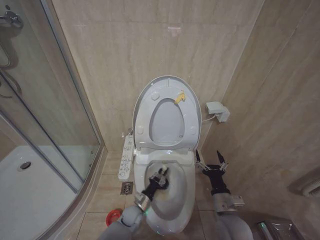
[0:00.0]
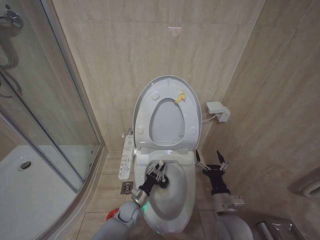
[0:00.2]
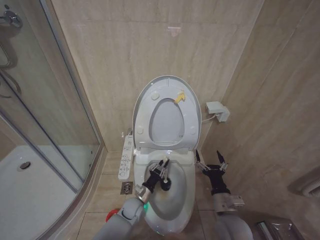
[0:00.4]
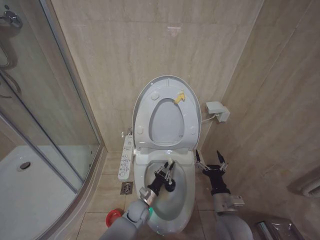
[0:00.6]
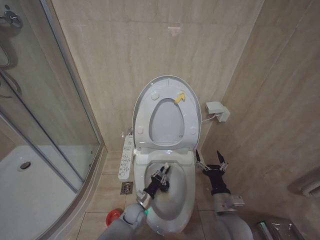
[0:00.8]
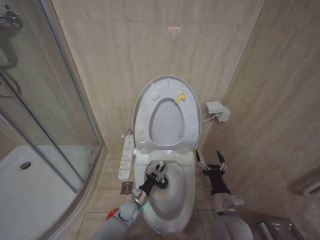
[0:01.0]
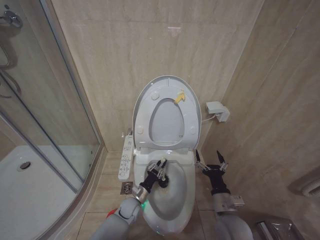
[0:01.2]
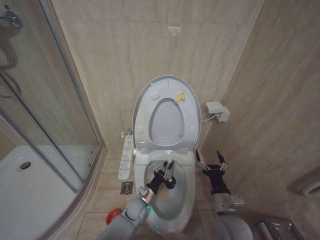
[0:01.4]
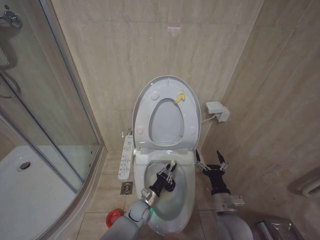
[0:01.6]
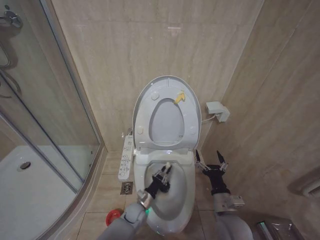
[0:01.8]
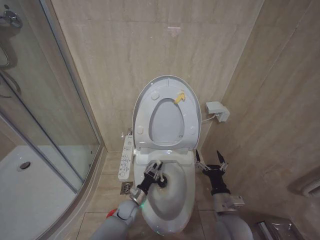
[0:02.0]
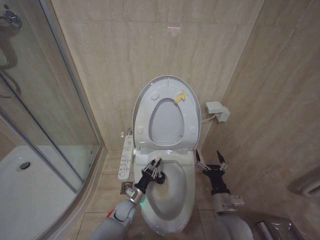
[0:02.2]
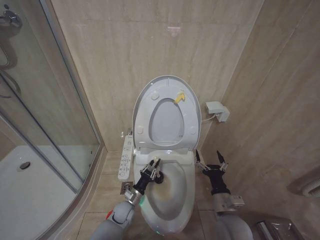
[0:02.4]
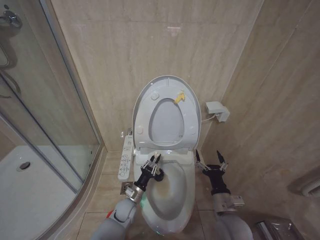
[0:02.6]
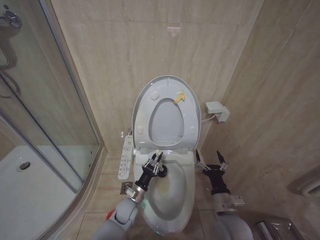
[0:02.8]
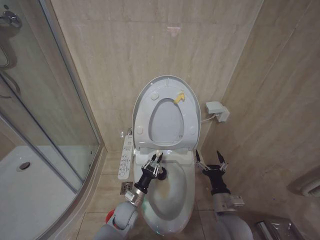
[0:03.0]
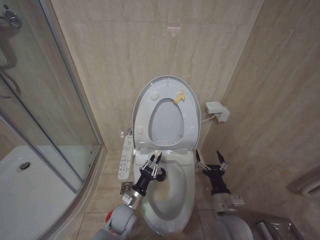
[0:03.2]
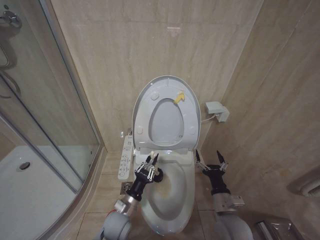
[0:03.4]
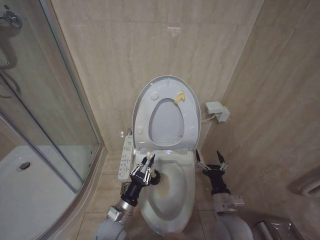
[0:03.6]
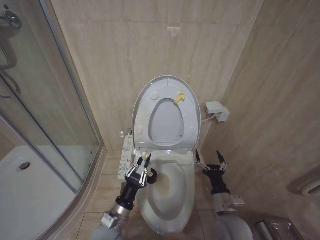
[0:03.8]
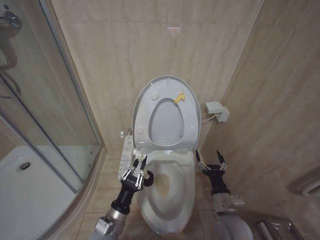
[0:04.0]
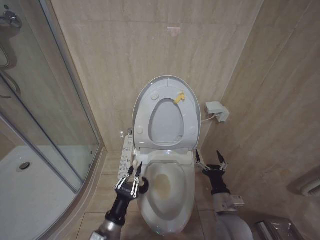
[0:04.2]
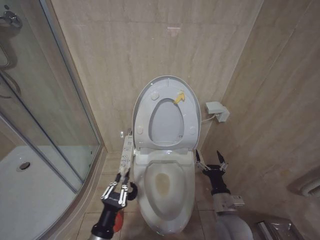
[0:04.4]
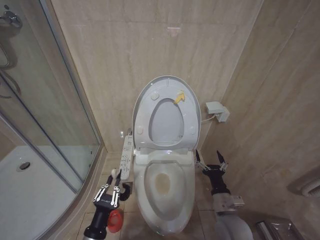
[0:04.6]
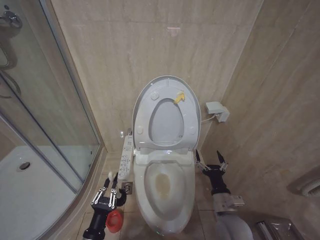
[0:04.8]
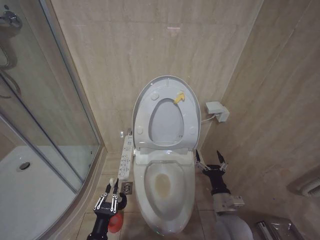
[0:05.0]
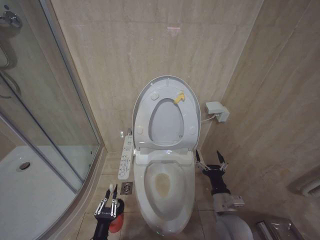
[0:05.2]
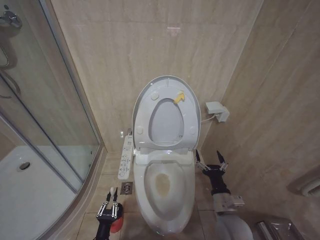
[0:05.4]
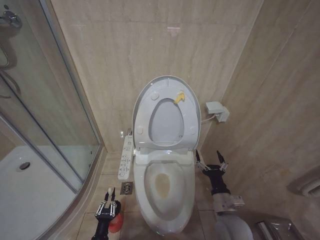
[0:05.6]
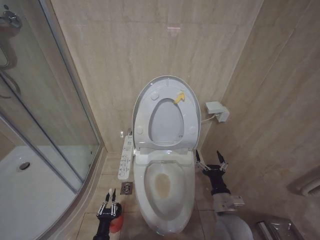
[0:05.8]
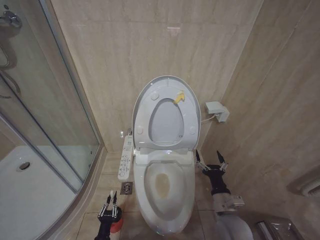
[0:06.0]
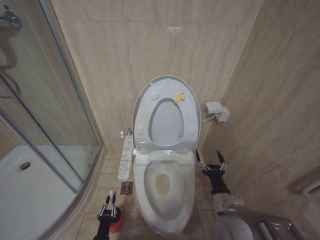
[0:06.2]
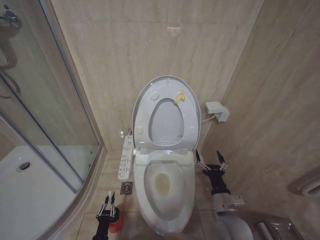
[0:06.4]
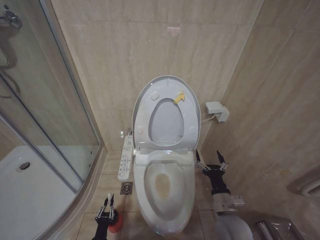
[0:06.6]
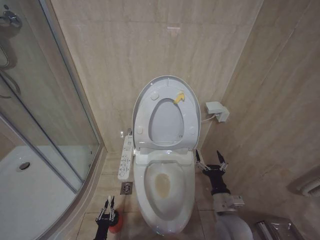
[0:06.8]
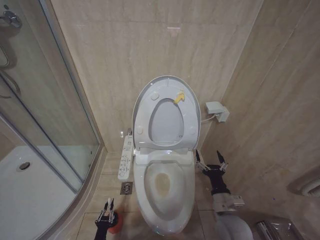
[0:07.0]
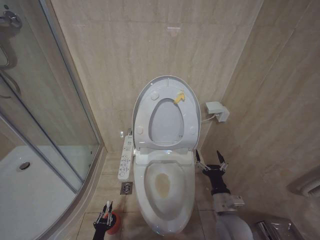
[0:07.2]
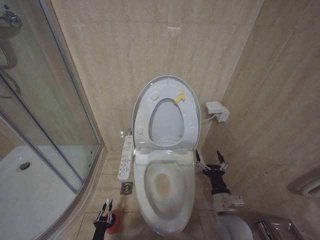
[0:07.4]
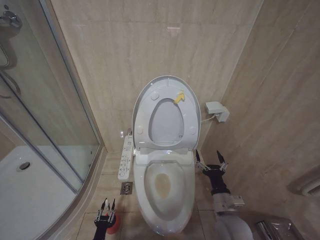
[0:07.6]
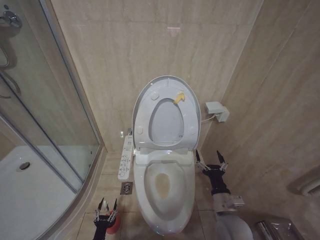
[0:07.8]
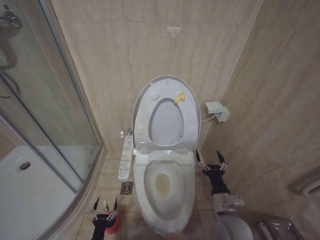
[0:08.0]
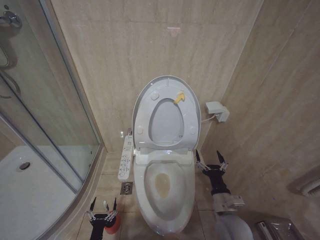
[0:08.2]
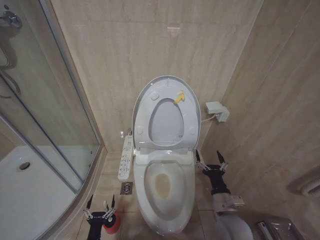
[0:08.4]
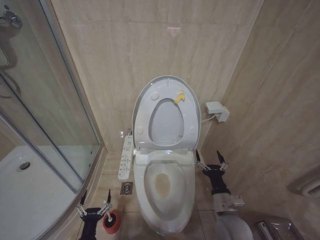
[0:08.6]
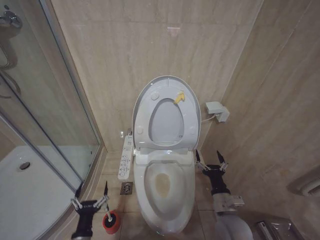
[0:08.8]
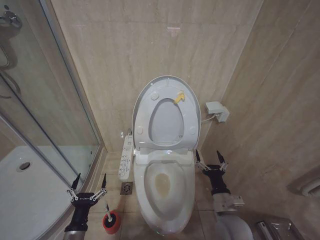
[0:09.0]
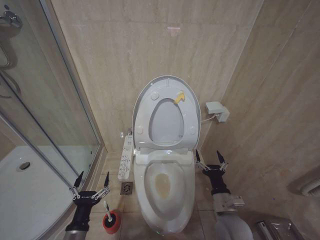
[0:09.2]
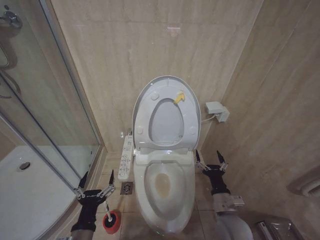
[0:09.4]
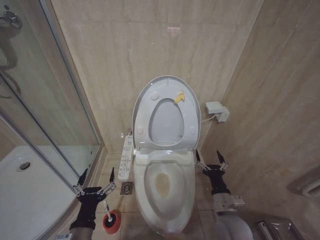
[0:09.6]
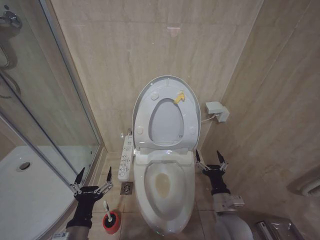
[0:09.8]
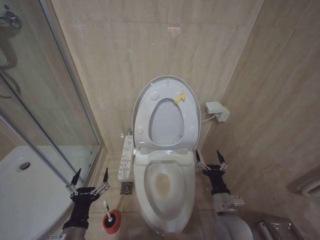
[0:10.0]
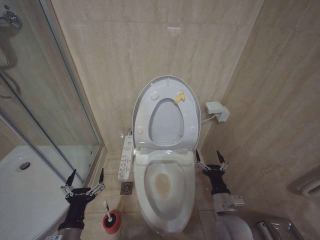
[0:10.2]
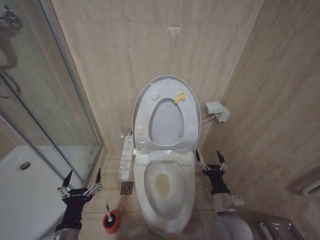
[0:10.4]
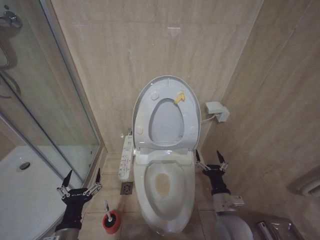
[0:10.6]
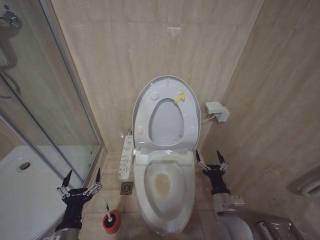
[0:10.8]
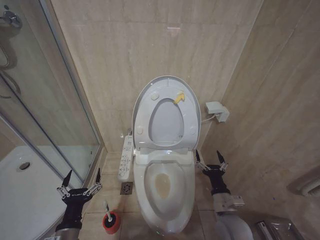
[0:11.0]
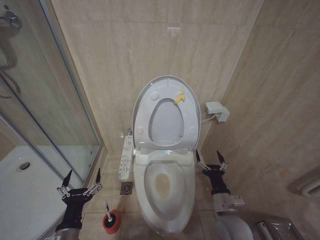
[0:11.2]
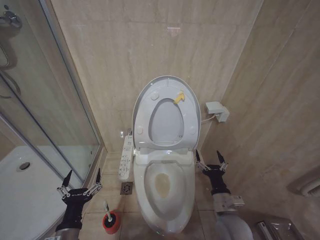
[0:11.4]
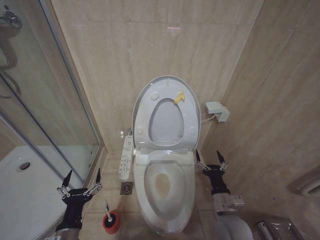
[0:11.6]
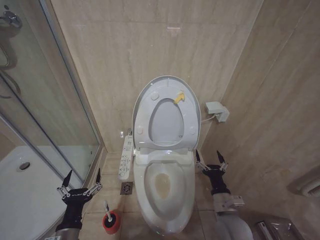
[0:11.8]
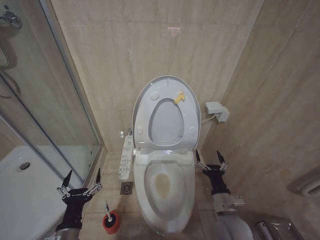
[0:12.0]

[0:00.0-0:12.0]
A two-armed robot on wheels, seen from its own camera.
Task of the whole recording: Open the toilet lid, clean the toilet bowl with a toilet brush, close the toilet lid, and flush.
0:00.0 to 0:01.6: The grippers make only small movements.
0:01.6 to 0:03.0: The left gripper travels upward by some 5 cm.
0:03.0 to 0:04.4: The left gripper moves backward and upward, some 20 cm.
0:04.4 to 0:06.0: The left gripper moves downward, about 20 cm.
0:06.0 to 0:07.6: The left gripper moves about 5 cm.
0:07.6 to 0:09.0: The left gripper goes about 25 cm upward, and opens.
0:09.0 to 0:10.4: The left gripper moves upward, approximately 10 cm.
0:10.4 to 0:12.0: Neither gripper changes place.

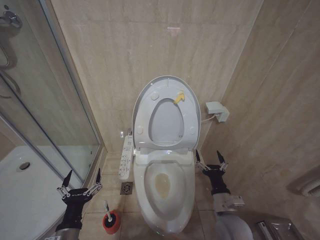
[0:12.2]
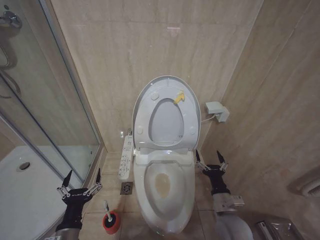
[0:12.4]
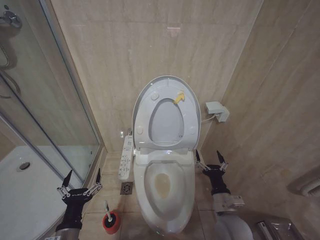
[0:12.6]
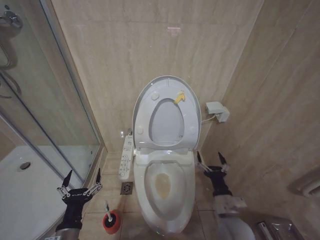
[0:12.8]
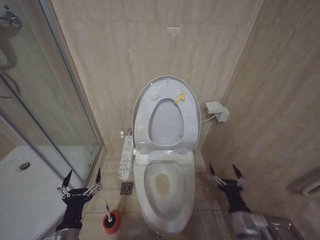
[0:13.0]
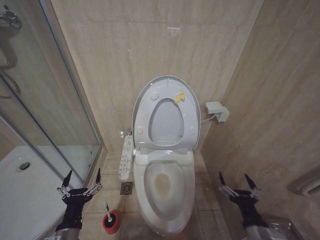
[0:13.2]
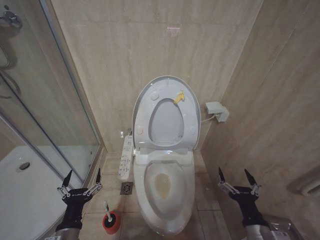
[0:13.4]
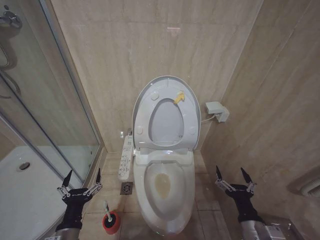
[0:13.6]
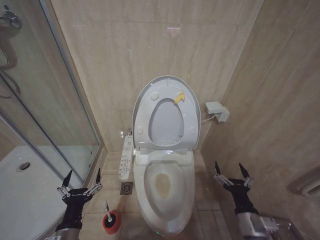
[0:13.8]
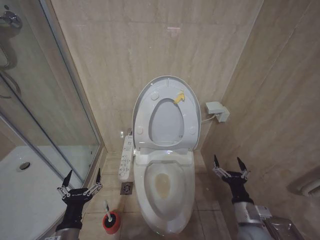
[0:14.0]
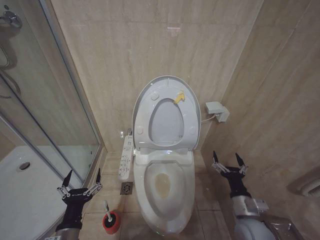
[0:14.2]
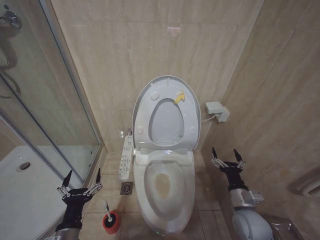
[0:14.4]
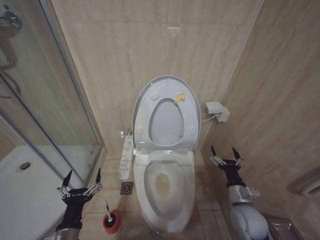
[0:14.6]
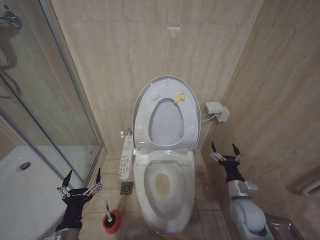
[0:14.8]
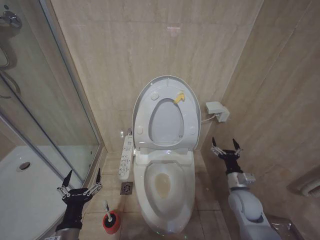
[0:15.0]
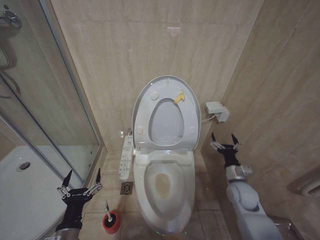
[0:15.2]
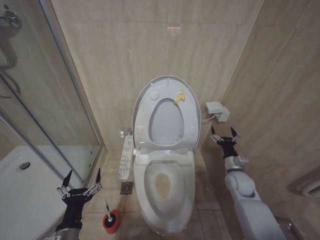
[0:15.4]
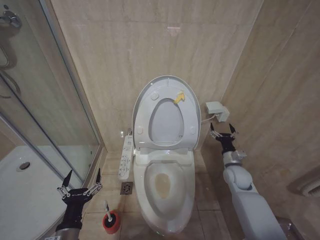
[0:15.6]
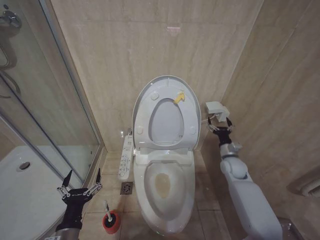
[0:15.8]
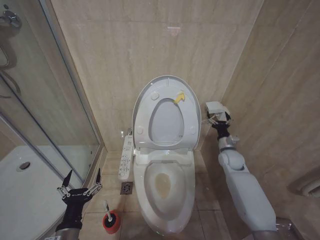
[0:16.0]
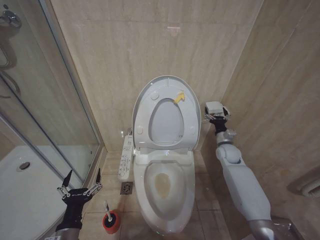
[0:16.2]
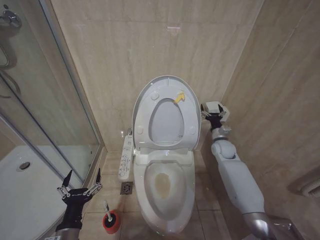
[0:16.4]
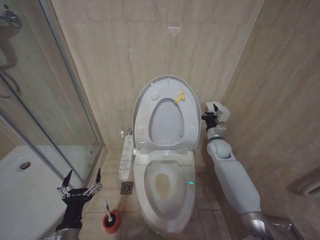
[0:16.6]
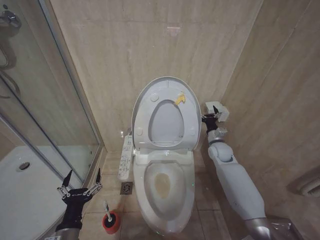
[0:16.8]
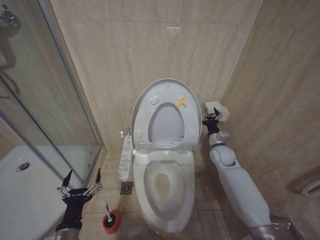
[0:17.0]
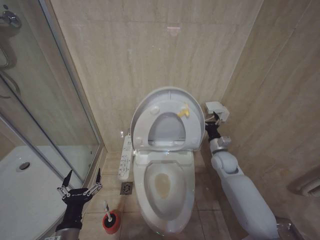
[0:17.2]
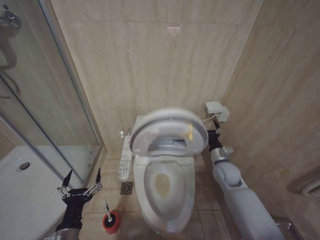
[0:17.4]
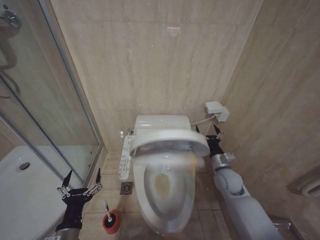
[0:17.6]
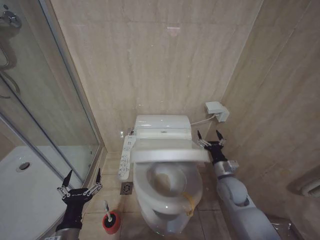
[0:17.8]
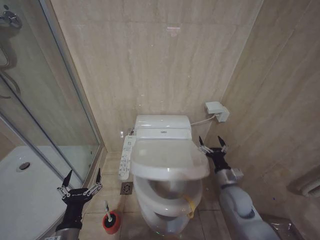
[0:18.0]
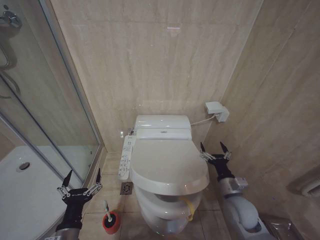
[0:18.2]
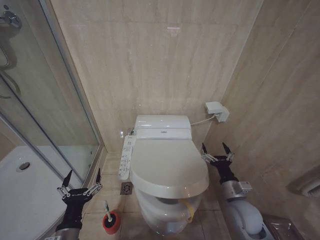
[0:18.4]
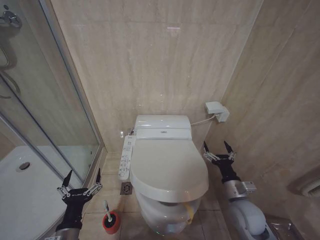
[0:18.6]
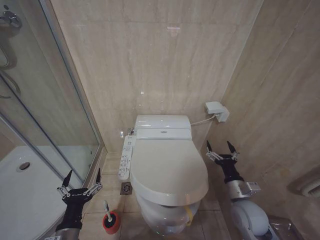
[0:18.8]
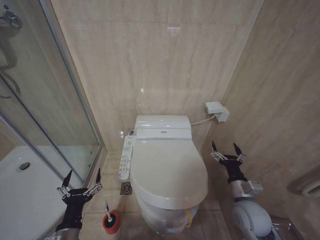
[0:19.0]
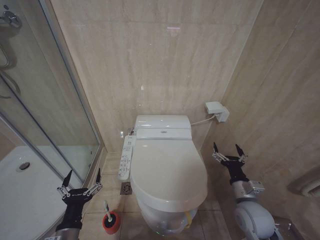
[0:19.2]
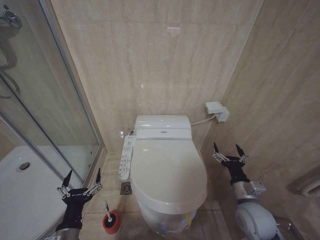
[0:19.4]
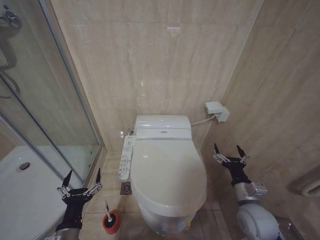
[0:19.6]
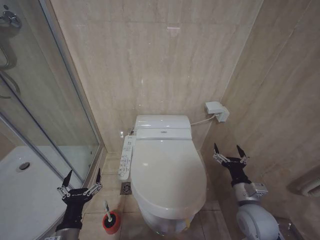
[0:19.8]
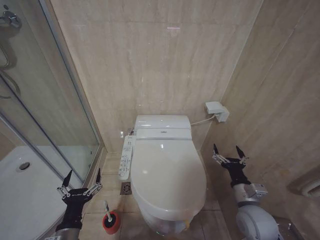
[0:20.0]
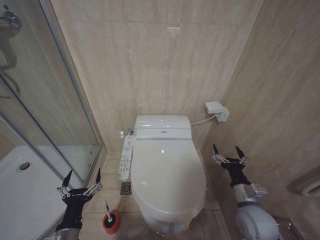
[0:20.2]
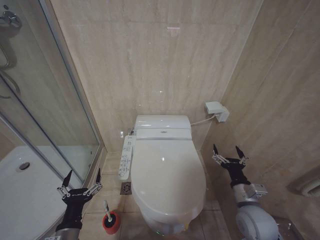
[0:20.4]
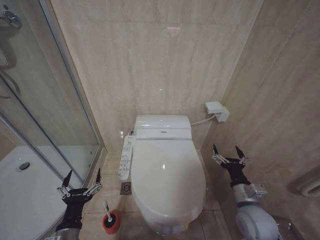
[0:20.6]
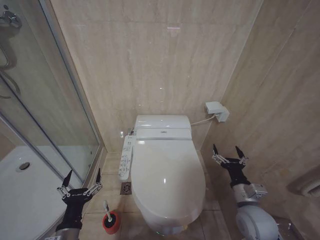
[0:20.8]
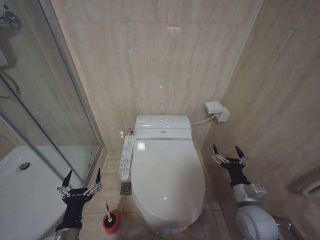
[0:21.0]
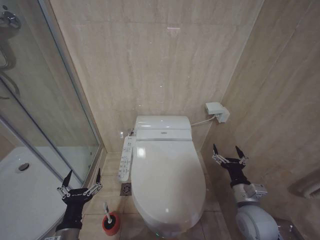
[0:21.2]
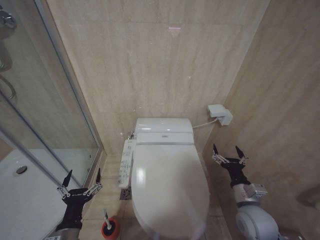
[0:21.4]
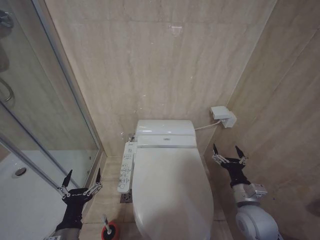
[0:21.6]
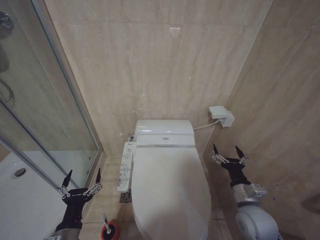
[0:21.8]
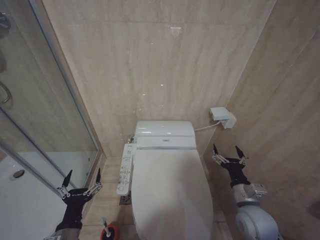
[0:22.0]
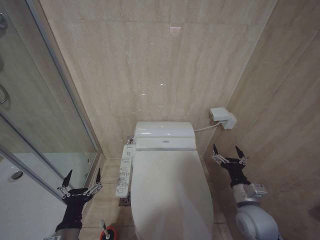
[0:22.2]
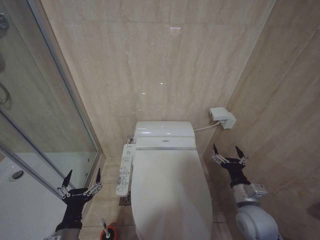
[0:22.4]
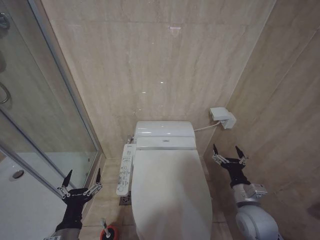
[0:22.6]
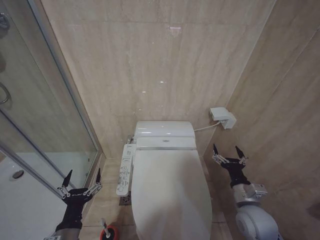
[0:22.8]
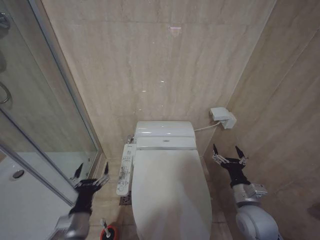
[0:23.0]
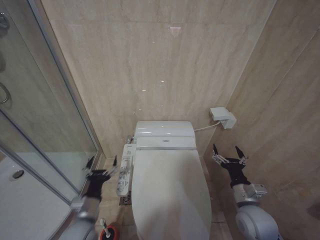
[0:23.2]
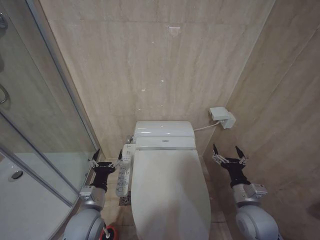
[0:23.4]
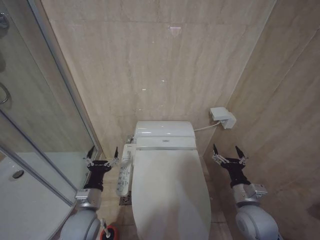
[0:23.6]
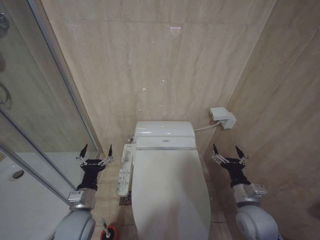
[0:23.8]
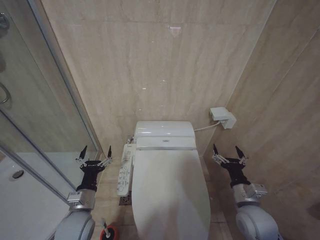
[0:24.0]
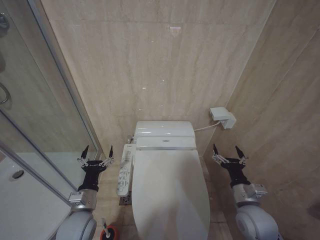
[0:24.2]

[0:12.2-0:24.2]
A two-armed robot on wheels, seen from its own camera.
Task of the whole recording: Open the toilet lid, clean the toilet bowl with a toilet brush, close the toilet lid, and flush.
0:12.2 to 0:13.8: The right gripper goes roughly 10 cm backward.
0:13.8 to 0:15.2: The right gripper travels forward by roughly 15 cm.
0:15.2 to 0:16.6: The right gripper moves forward, about 20 cm.
0:16.6 to 0:18.2: The right gripper shifts about 20 cm backward.
0:18.2 to 0:19.8: The right gripper shifts about 5 cm backward.
0:19.8 to 0:22.6: Both grippers stay put.
0:22.6 to 0:24.2: The left gripper moves forward, approximately 10 cm.
